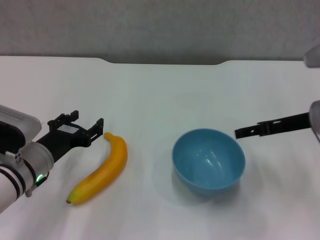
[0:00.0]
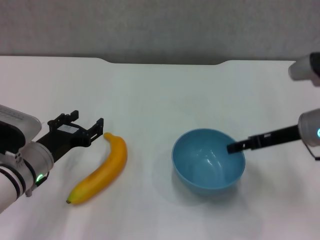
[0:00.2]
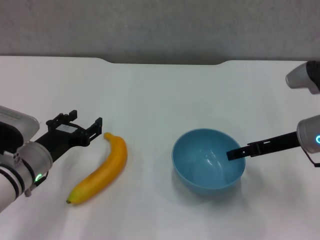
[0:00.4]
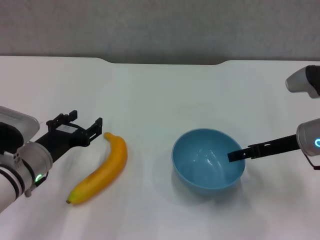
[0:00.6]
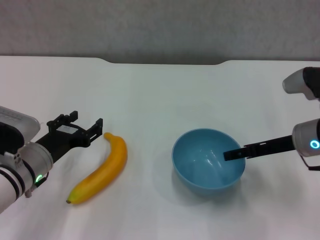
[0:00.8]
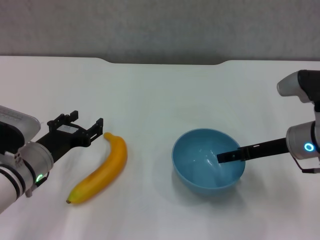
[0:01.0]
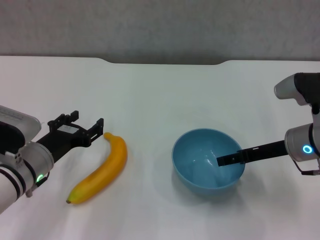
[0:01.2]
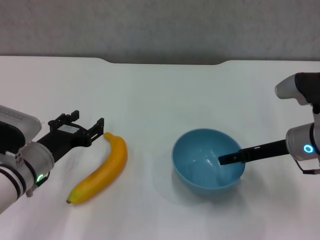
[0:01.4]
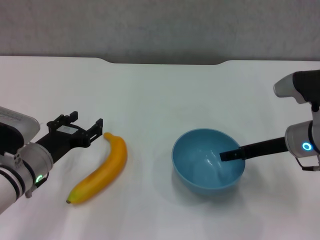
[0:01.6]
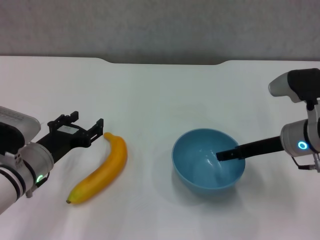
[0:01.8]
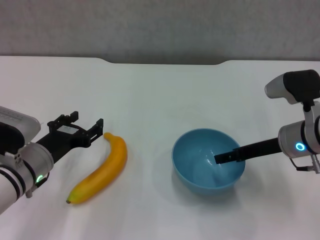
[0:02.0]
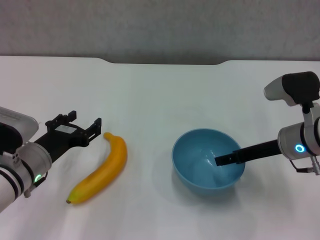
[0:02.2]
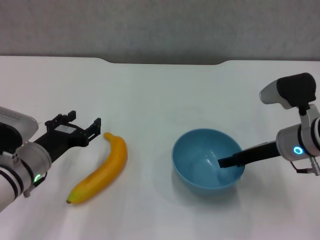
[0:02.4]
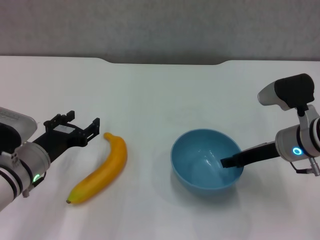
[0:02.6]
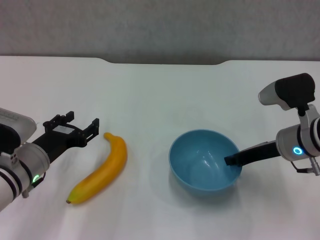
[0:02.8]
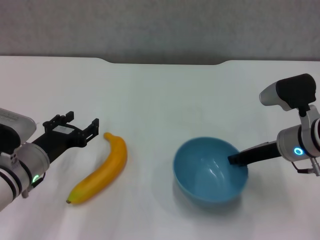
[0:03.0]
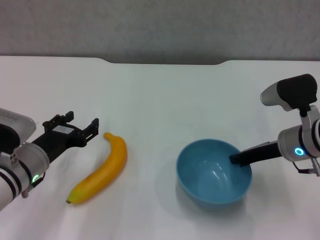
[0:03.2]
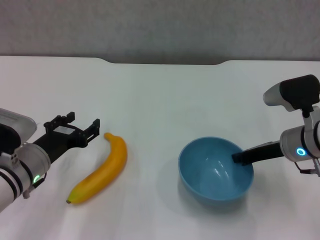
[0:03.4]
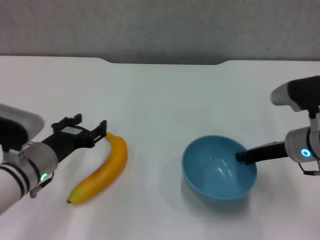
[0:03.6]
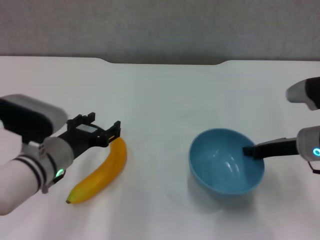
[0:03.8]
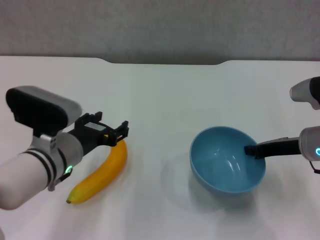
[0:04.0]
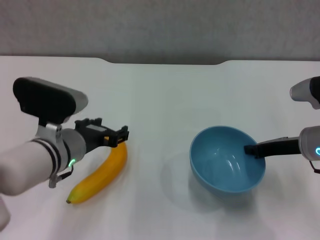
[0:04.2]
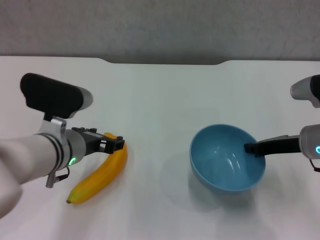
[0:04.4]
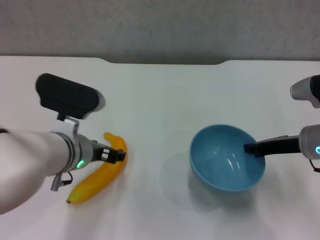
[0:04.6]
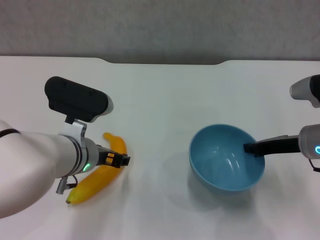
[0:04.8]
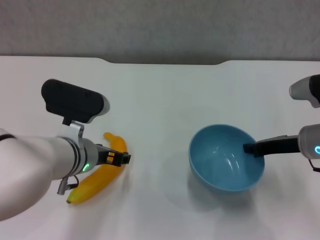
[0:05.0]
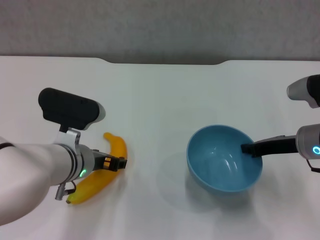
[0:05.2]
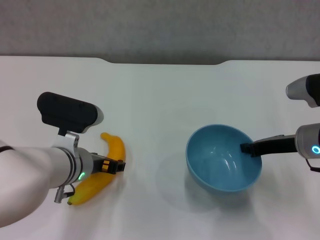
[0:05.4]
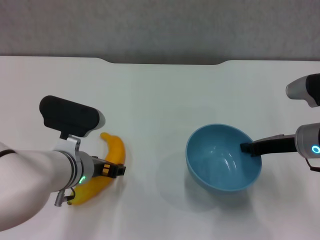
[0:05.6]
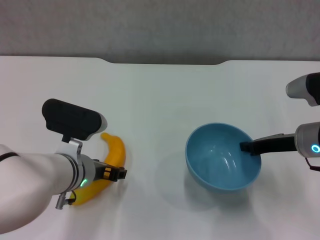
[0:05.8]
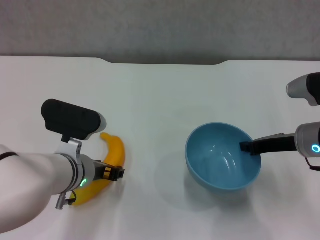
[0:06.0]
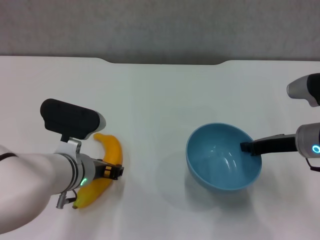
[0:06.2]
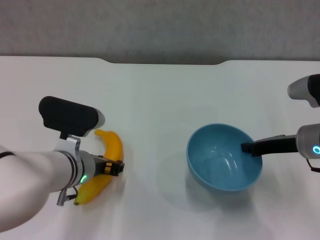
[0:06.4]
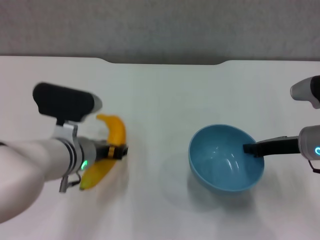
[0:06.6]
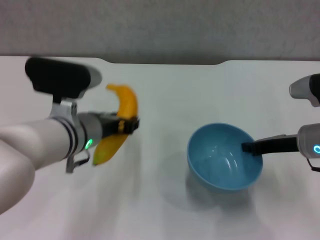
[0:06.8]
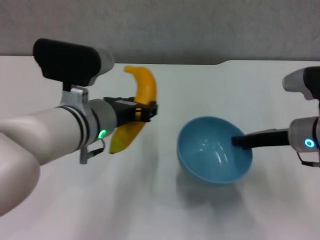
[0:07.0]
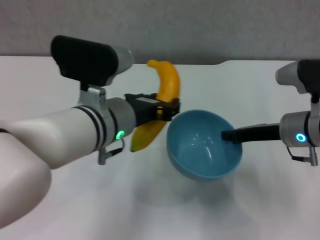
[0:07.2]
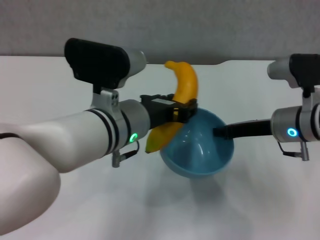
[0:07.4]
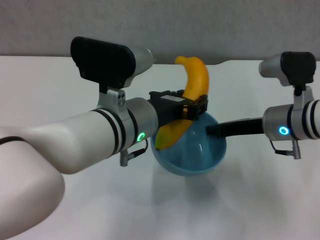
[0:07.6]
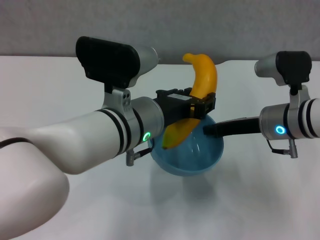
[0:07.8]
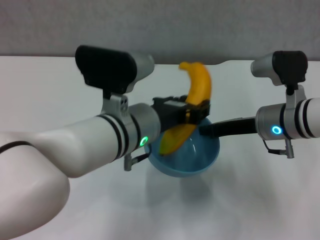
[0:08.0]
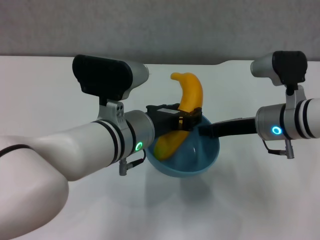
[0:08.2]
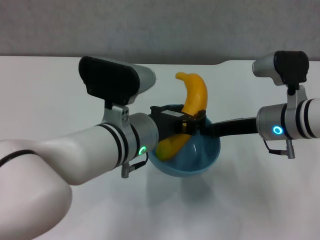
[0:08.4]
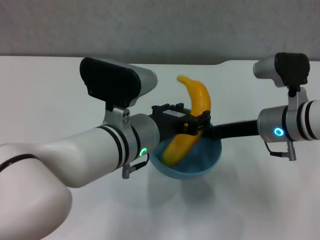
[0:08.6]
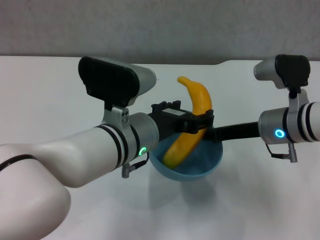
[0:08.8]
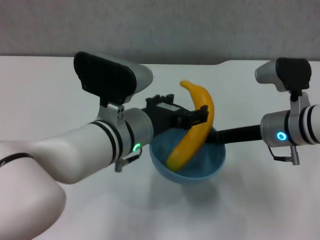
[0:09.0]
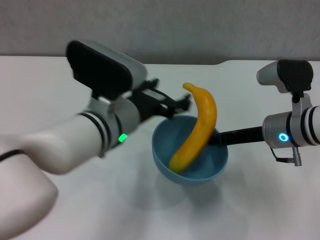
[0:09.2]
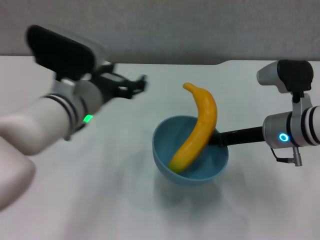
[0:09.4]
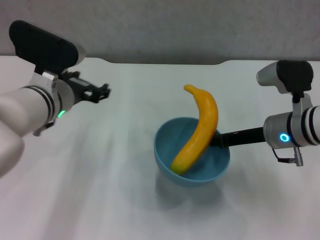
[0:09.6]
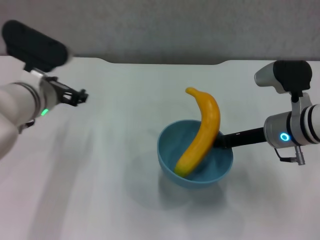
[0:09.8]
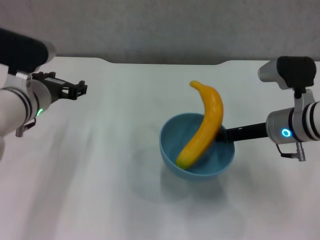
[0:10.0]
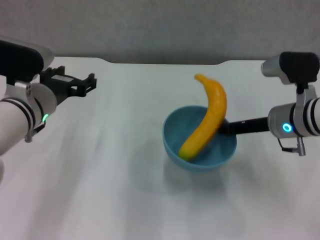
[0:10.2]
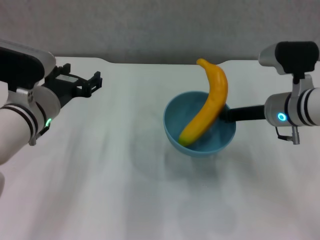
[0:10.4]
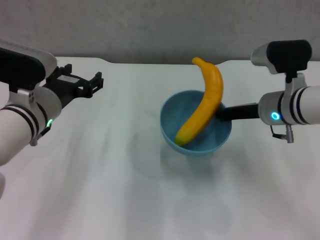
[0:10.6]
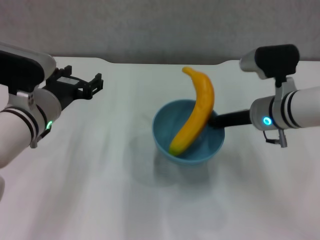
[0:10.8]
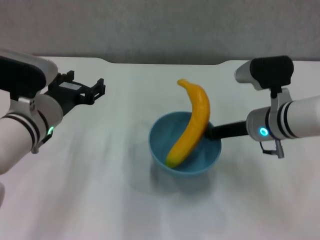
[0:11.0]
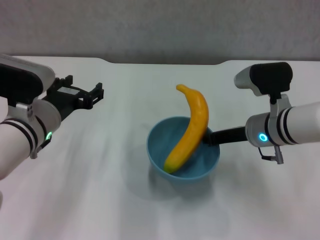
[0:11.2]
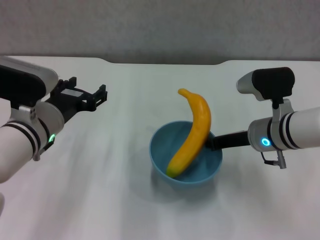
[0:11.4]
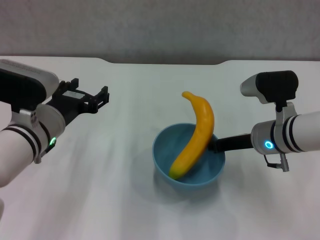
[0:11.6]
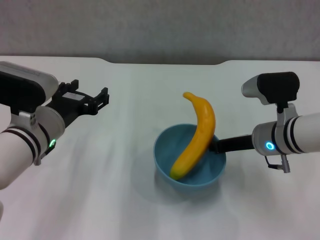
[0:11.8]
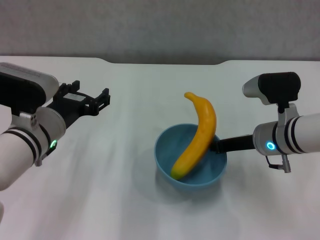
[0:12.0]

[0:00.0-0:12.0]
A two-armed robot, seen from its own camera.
Step, 0:00.0 to 0:03.0: Grasp the blue bowl with right gripper.
Step, 0:03.2 to 0:04.2: Lift the blue bowl with right gripper.
Step, 0:04.4 to 0:06.0: Grasp the banana with left gripper.
Step, 0:06.2 to 0:09.0: Place the banana in the blue bowl with left gripper.
0:00.0 to 0:01.6: The right gripper ends up some 5 cm from where it was.
0:01.6 to 0:03.0: The right gripper closes its fingers.
0:03.0 to 0:04.4: The left gripper is displaced to the right and upward by roughly 10 cm.
0:04.4 to 0:06.0: The grippers make only small movements.
0:06.0 to 0:07.6: The left gripper travels upward and to the right by approximately 15 cm, and closes its fingers; the right gripper shifts by about 5 cm.
0:07.6 to 0:09.0: The left gripper opens its fingers.
0:09.0 to 0:10.4: The left gripper moves to the left, approximately 10 cm.

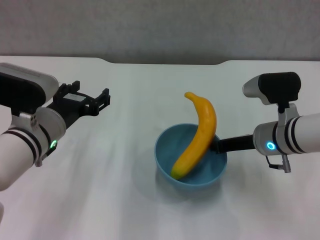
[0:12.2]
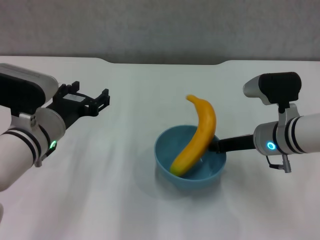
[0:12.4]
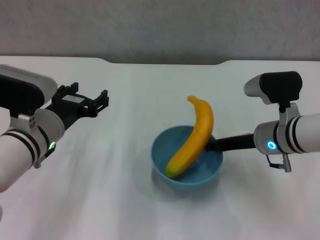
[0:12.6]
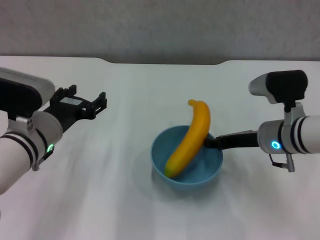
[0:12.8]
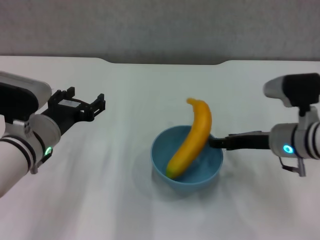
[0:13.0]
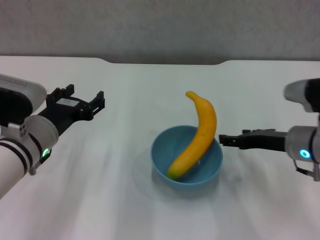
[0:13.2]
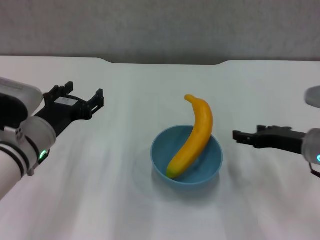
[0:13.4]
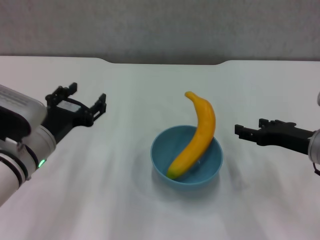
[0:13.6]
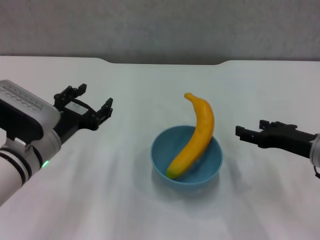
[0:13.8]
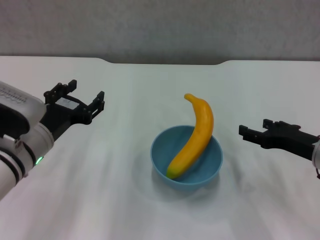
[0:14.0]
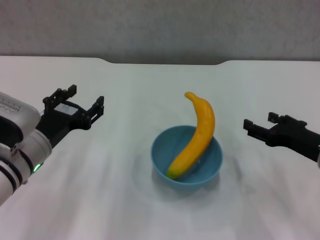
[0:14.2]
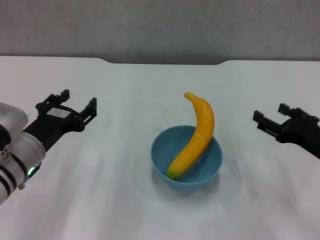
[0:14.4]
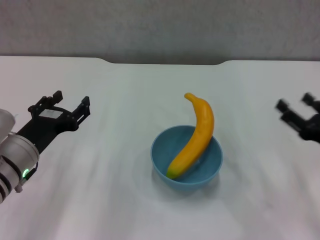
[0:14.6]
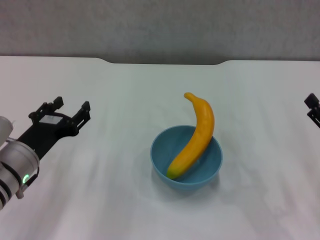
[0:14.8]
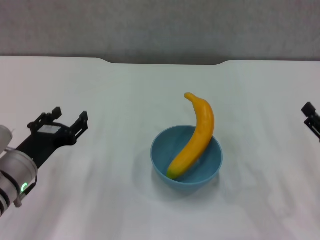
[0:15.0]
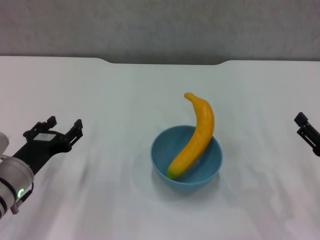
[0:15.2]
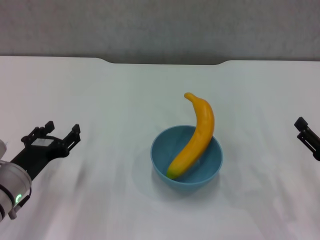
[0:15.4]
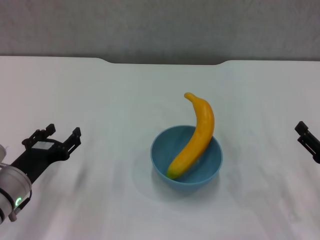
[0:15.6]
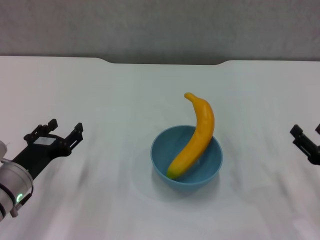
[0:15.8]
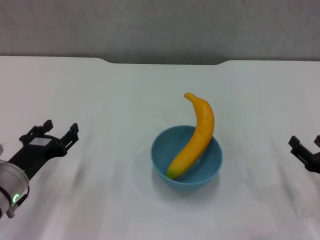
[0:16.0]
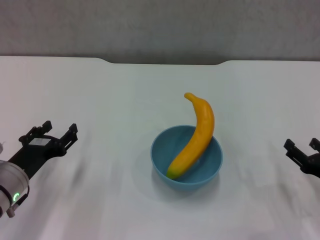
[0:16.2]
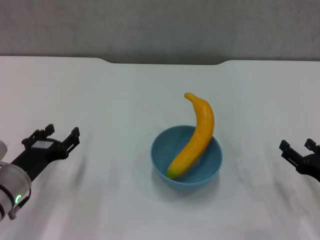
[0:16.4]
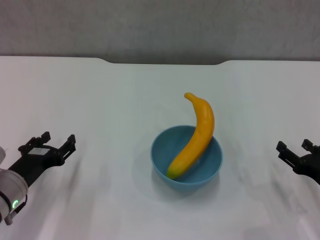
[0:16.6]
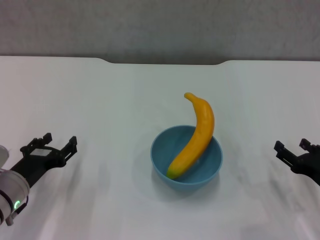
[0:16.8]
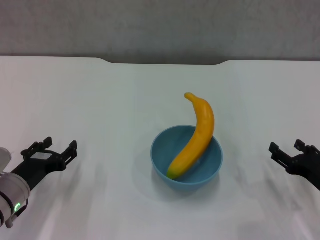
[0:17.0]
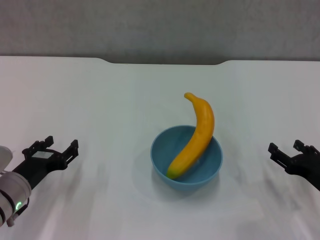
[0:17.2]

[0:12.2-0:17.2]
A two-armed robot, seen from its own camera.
0:12.2 to 0:13.8: The right gripper travels to the right and backward by approximately 10 cm, and opens its fingers.
0:13.8 to 0:15.6: The right gripper moves backward, to the right and downward, some 10 cm, while the left gripper shifts about 10 cm downward and to the left.
0:15.6 to 0:17.2: The grippers make only small movements.
